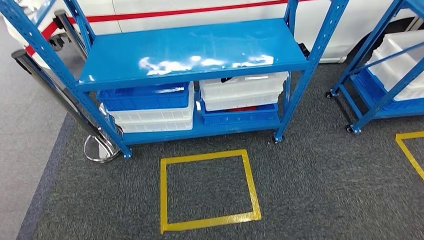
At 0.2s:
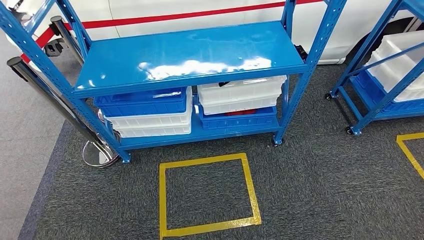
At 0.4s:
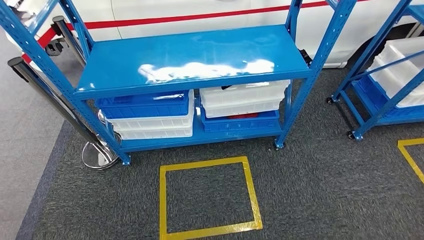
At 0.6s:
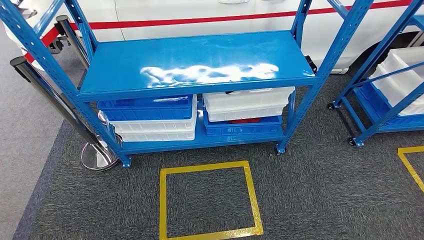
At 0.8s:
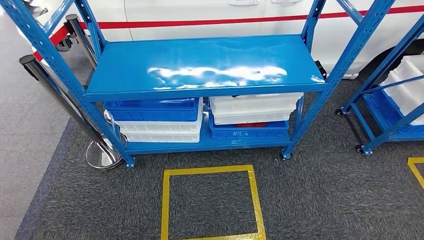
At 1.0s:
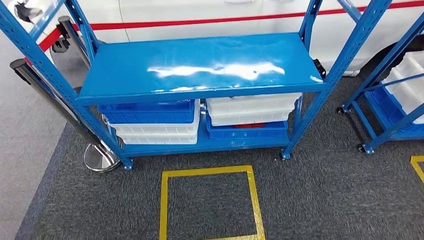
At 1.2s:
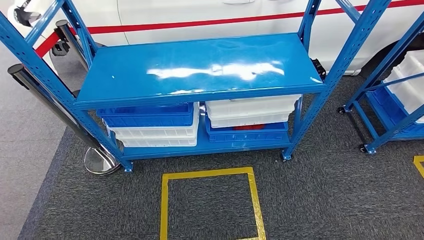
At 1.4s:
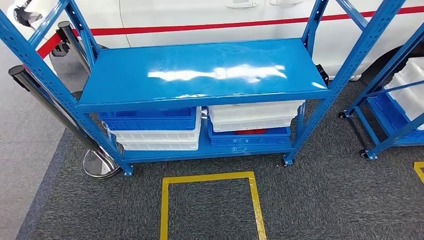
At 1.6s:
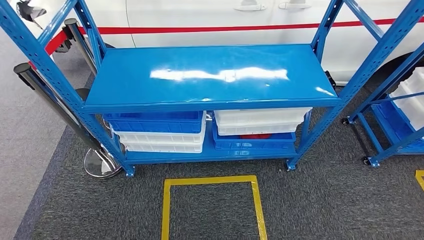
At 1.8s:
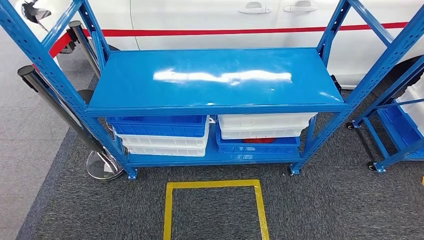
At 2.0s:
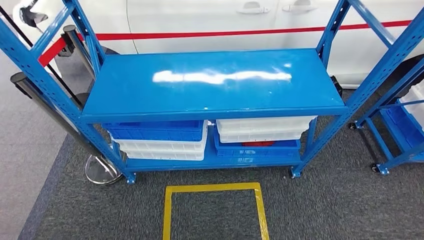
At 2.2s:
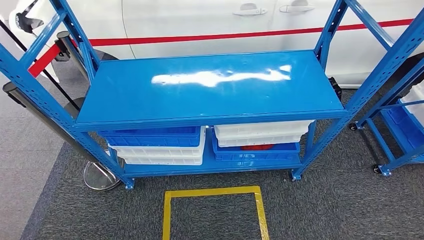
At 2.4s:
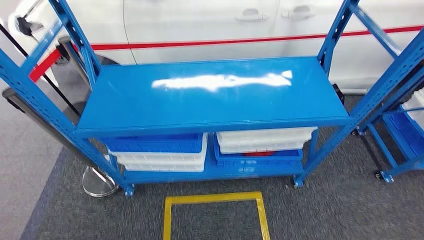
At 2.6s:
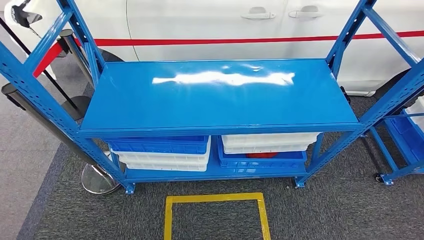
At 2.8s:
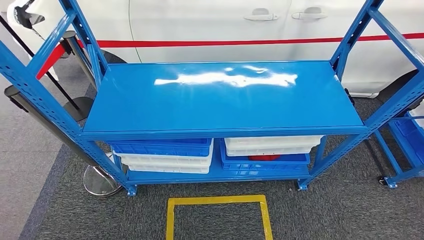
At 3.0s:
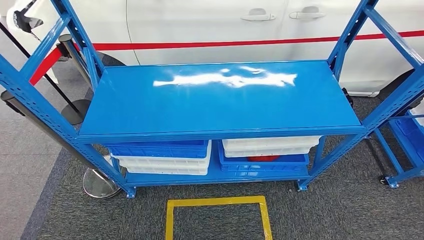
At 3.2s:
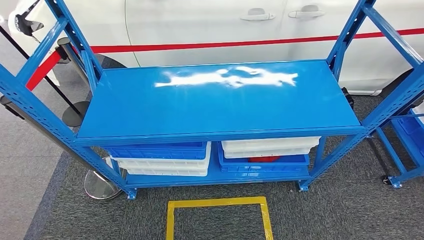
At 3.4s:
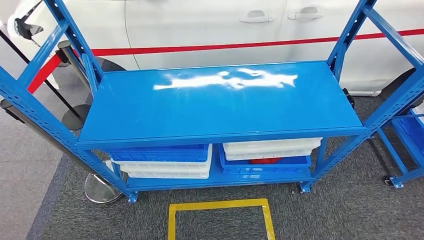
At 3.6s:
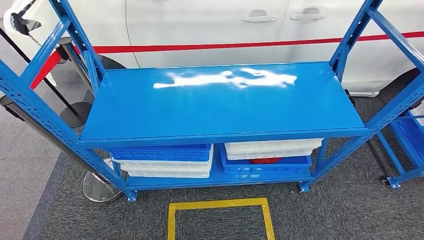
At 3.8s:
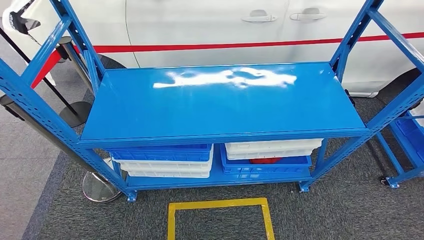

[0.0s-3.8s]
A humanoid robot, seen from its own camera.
Step, 0.0s to 3.8s: Move to the initial position of the shelf.

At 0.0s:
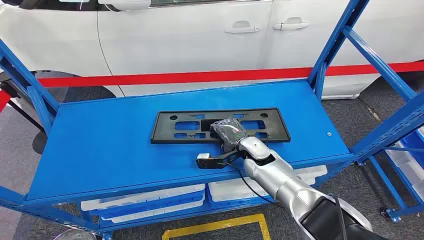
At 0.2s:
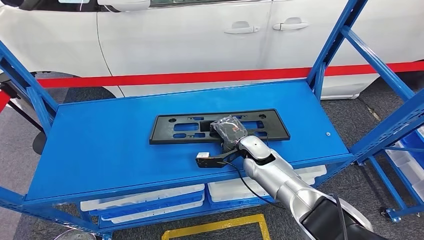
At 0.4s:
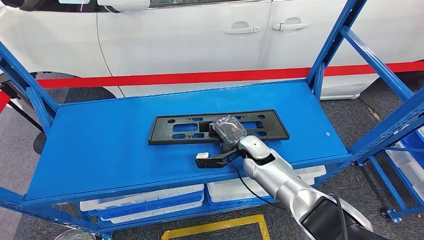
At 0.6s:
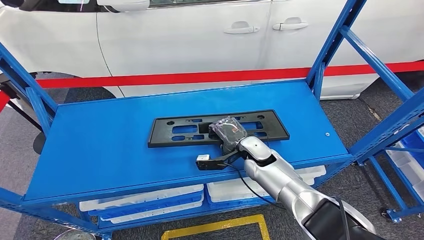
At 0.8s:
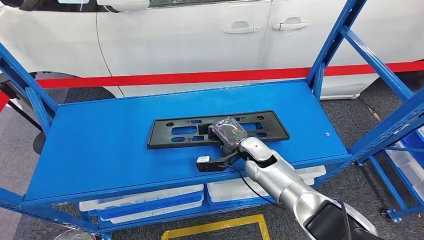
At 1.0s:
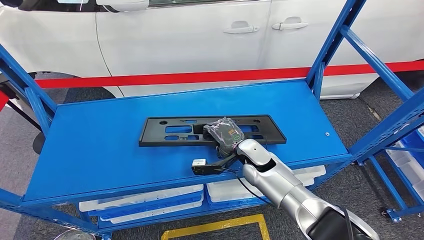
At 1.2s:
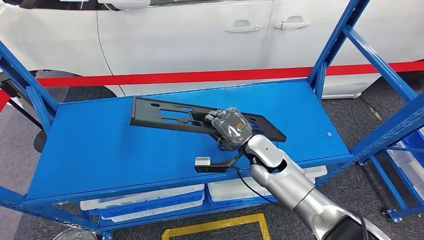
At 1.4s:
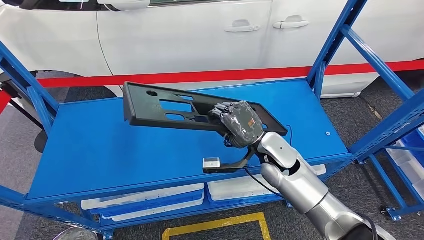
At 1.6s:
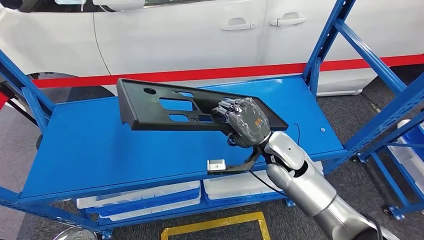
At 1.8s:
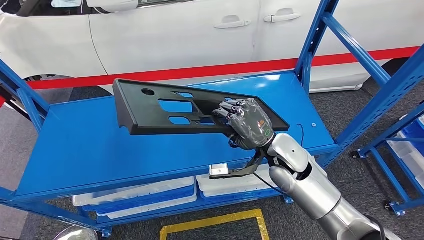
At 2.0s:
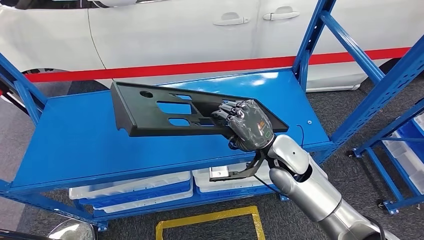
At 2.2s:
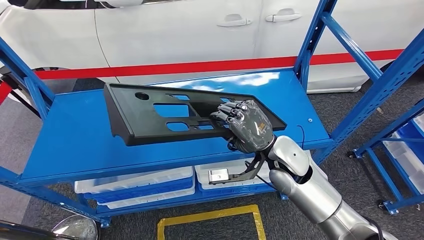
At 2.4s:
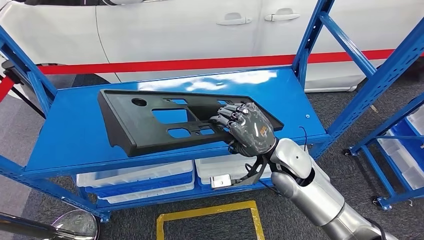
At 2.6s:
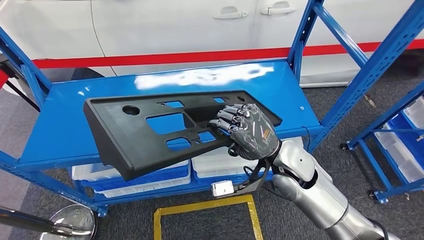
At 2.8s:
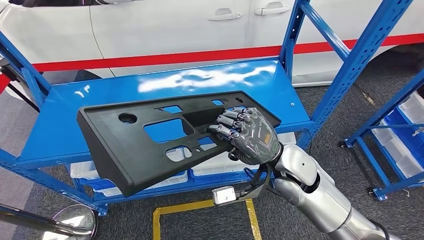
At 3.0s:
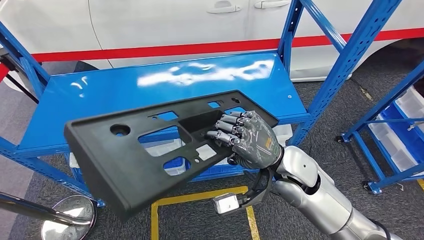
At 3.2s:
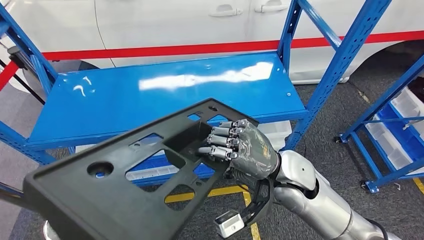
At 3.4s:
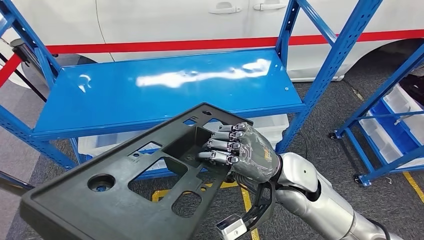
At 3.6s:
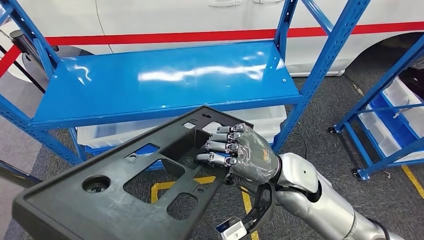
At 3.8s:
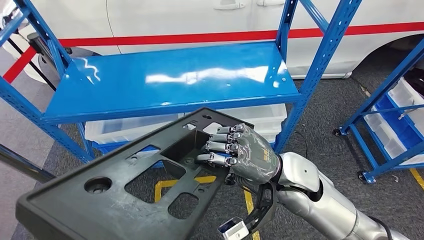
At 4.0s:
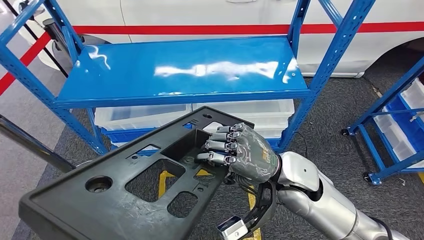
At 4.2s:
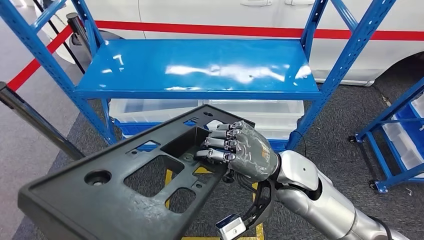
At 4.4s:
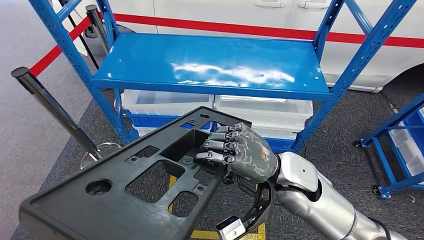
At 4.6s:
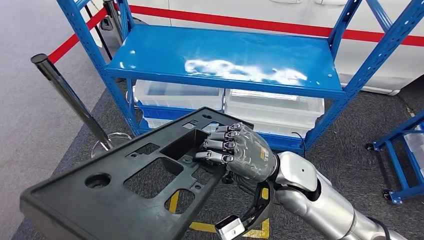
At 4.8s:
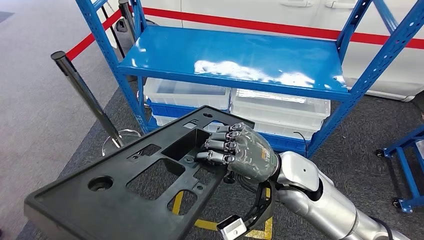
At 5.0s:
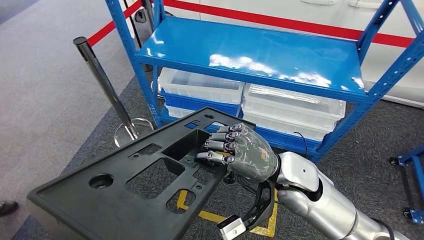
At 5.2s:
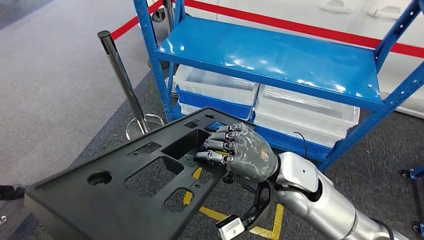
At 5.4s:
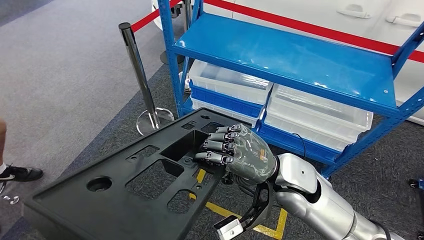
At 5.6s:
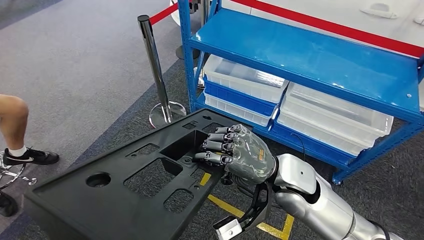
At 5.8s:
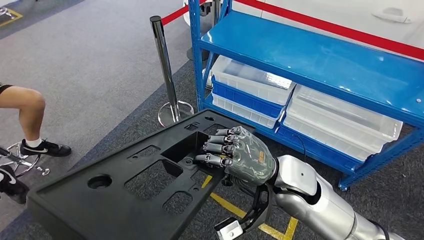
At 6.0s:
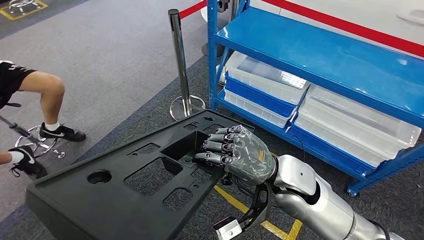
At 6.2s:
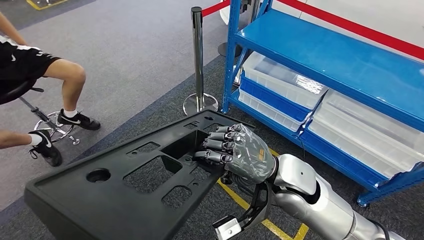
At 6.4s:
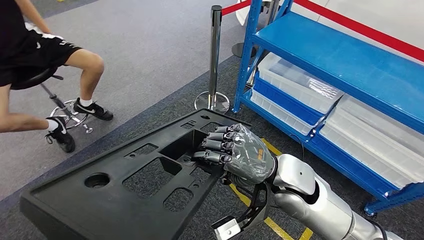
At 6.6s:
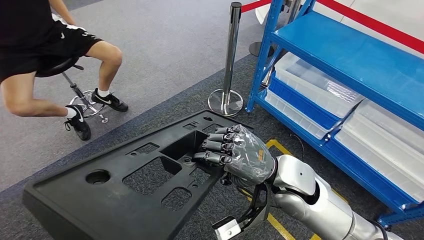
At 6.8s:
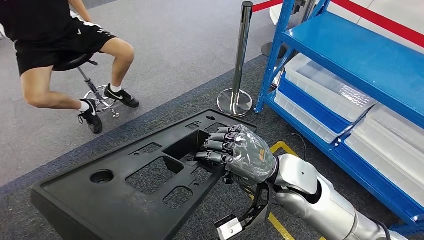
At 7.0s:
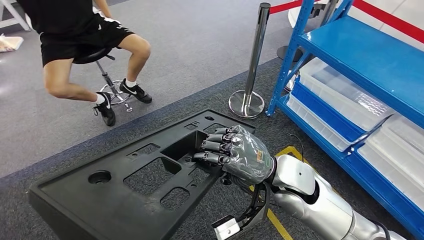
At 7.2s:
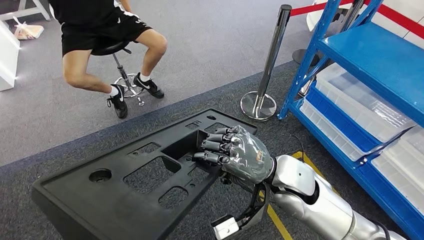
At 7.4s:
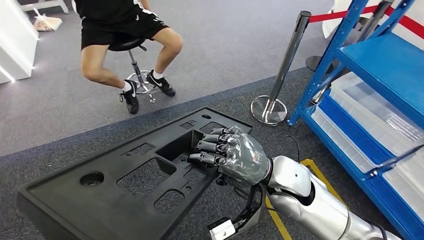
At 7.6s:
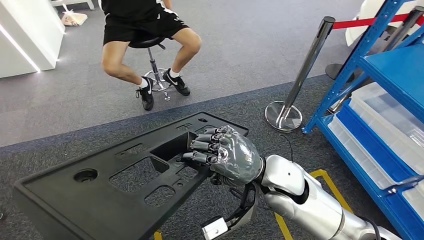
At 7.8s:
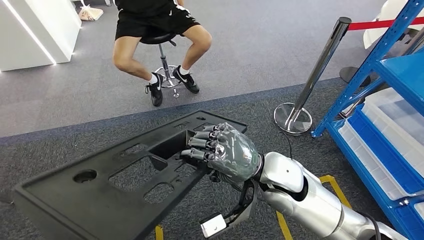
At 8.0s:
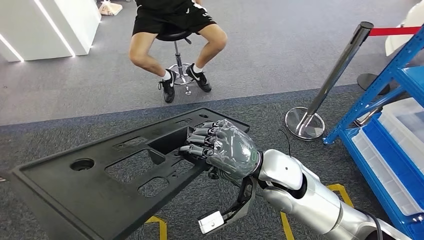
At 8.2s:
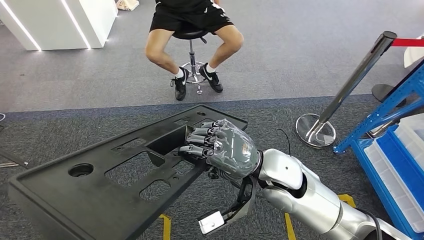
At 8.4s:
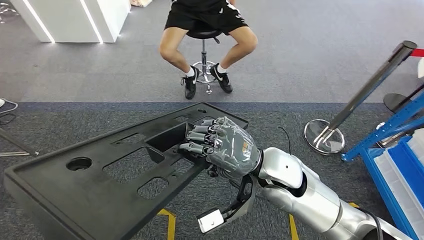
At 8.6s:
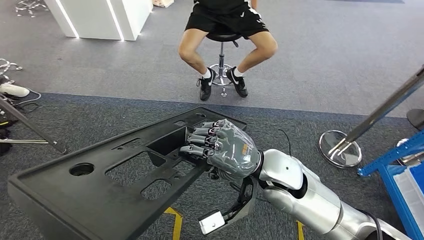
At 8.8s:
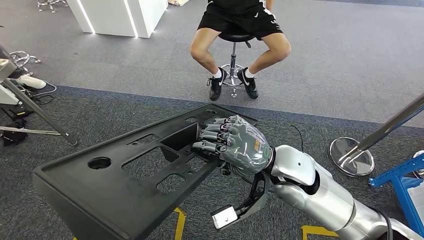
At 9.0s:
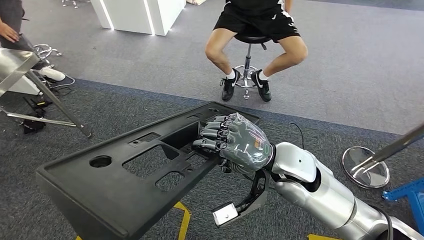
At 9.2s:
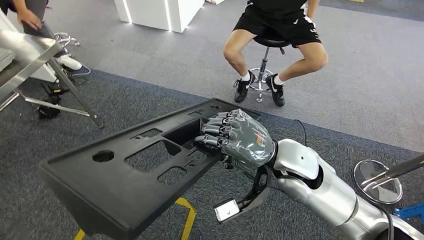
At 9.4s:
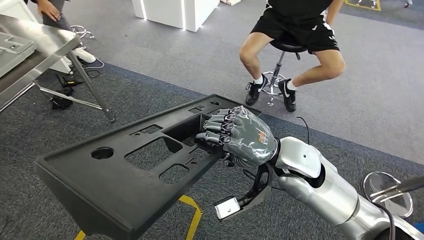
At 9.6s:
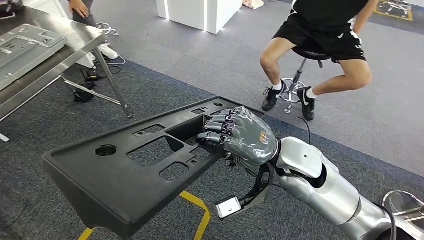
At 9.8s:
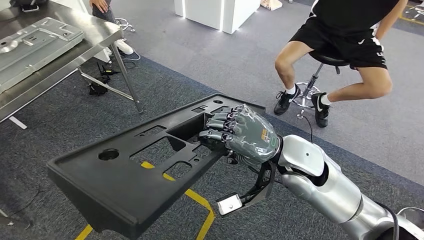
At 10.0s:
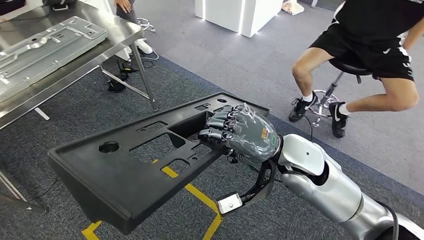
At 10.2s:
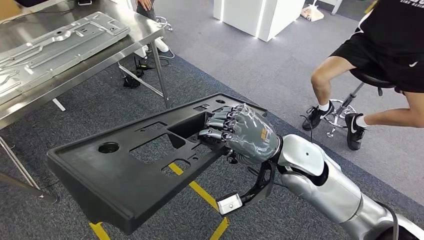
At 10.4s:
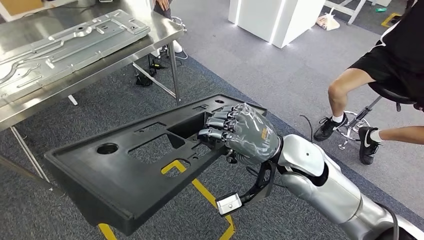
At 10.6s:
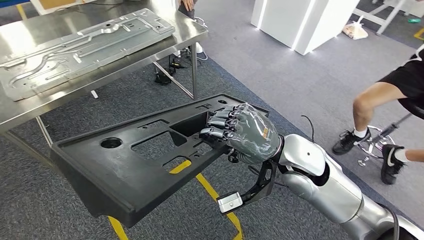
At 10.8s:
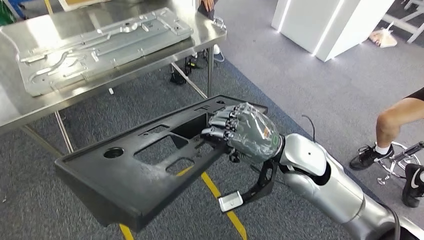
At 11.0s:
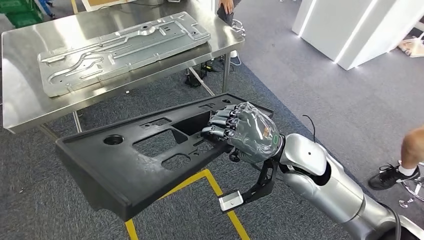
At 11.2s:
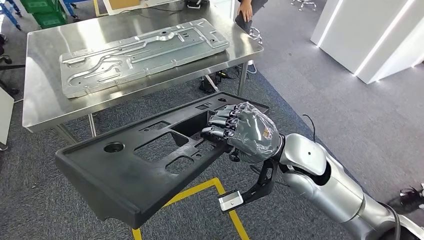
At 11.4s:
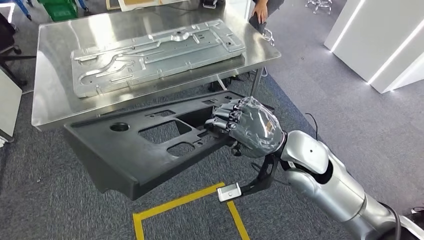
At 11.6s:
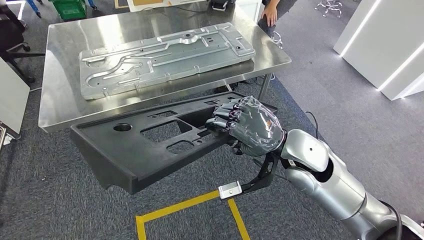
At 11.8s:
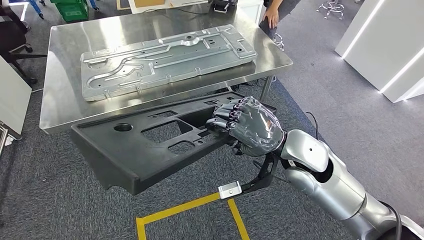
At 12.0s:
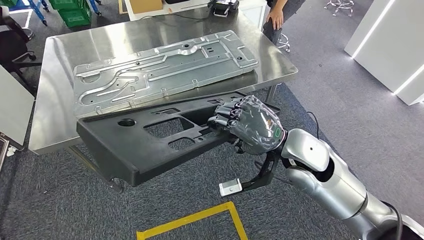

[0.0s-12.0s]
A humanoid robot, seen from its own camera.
Step, 0.0s to 4.6s: Pick up the large material from the shelf.

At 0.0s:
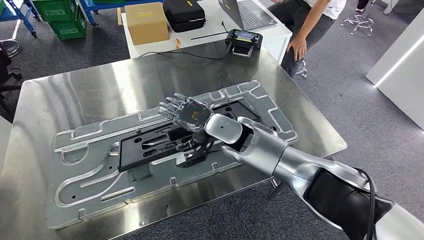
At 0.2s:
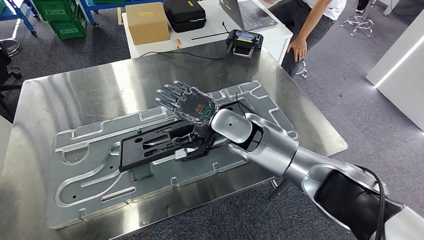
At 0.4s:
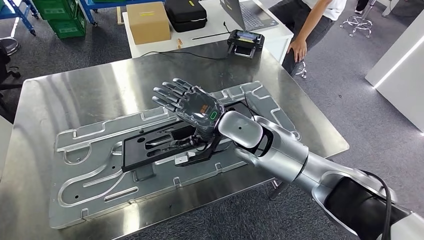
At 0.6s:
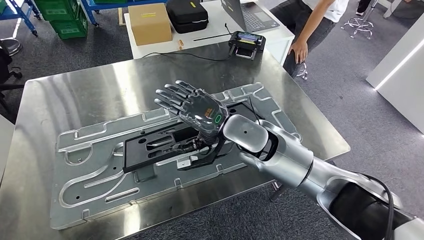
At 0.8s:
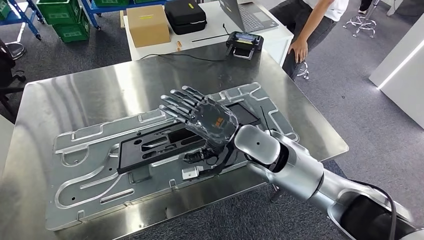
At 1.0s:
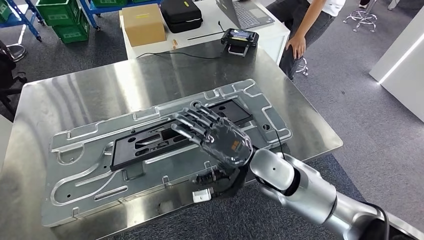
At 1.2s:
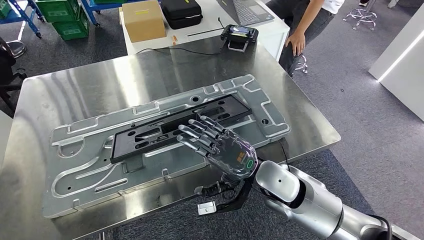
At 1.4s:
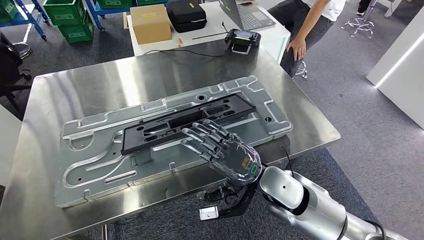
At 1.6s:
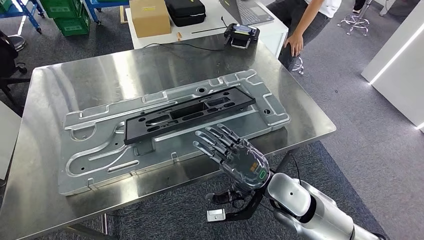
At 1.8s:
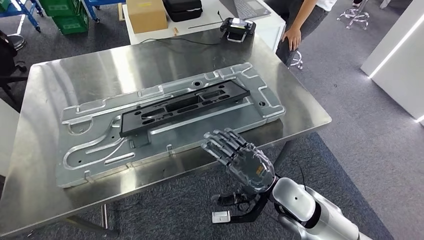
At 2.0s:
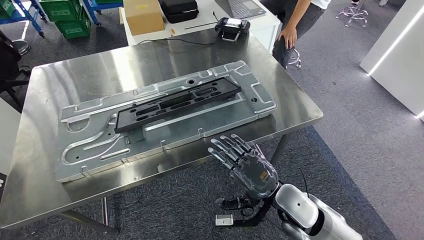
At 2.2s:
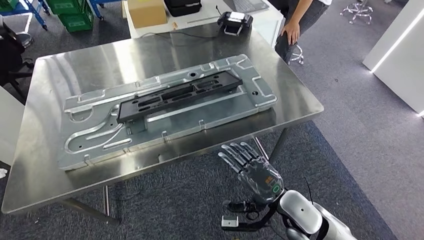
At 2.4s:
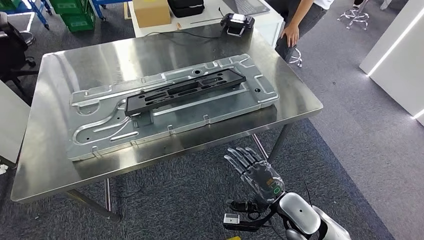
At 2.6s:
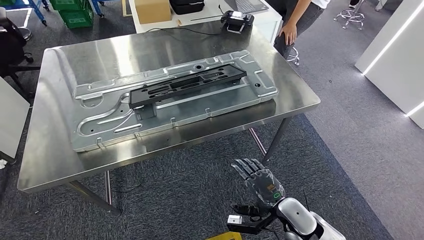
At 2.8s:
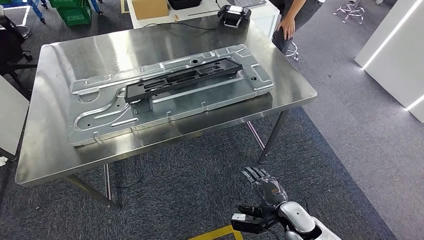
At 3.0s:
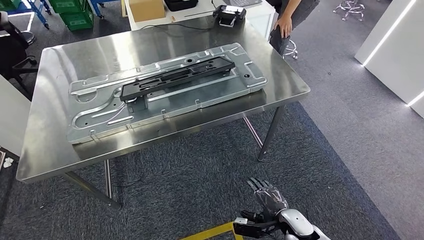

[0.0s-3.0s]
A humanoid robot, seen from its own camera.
Step, 0.0s to 2.4s: Insert the large material into the corresponding slot on the workbench.
